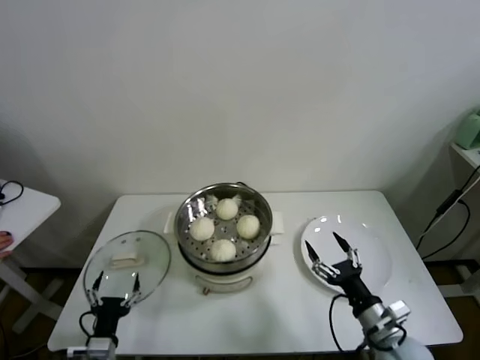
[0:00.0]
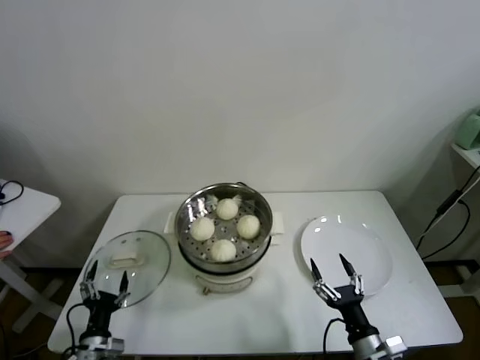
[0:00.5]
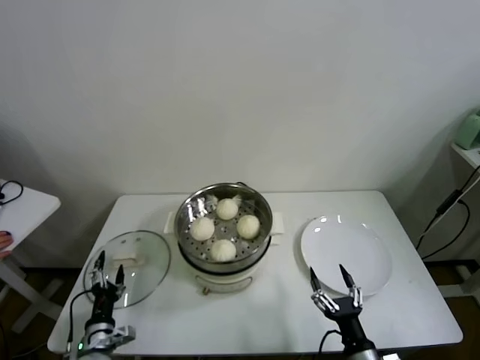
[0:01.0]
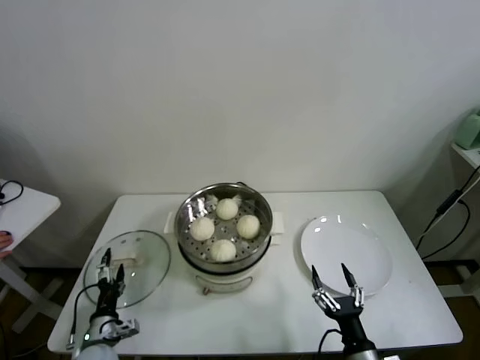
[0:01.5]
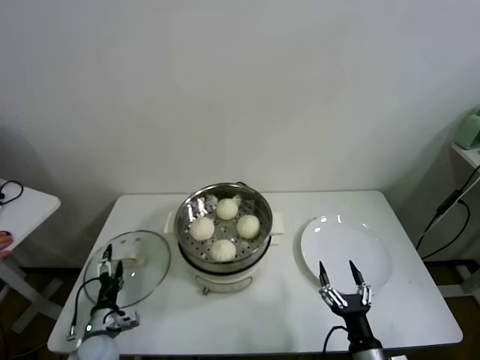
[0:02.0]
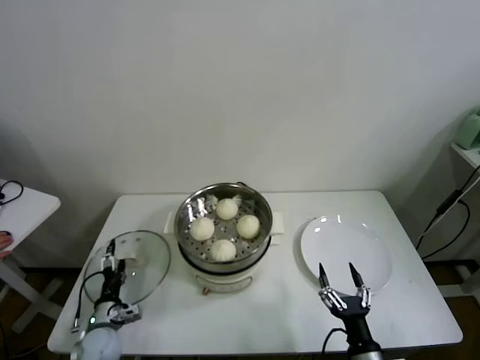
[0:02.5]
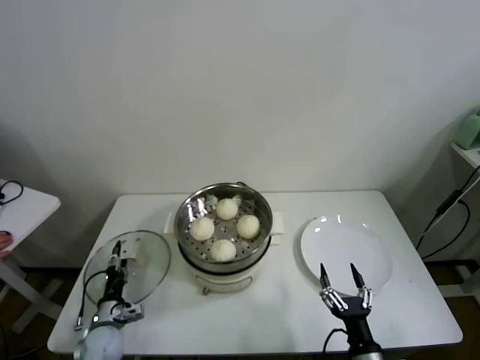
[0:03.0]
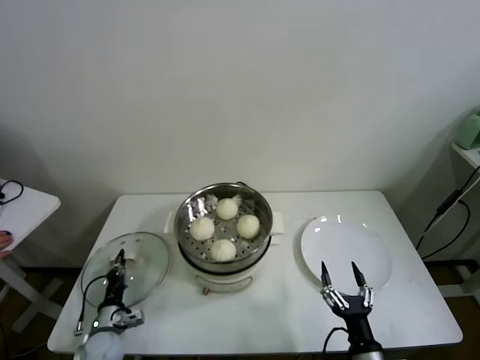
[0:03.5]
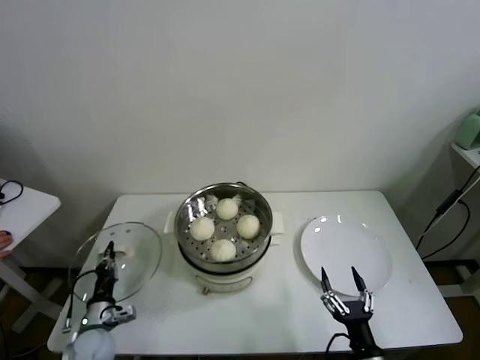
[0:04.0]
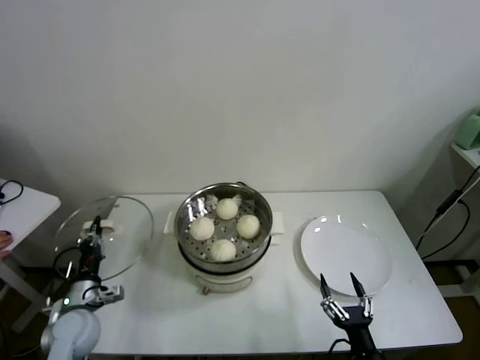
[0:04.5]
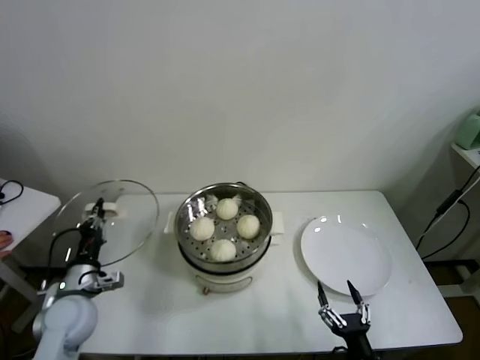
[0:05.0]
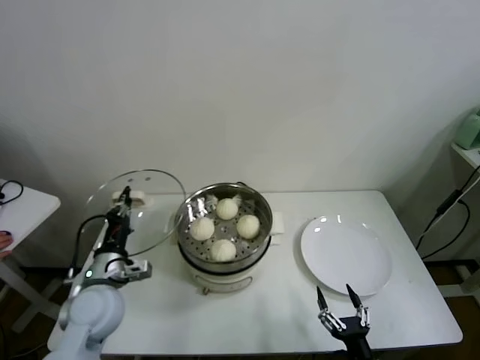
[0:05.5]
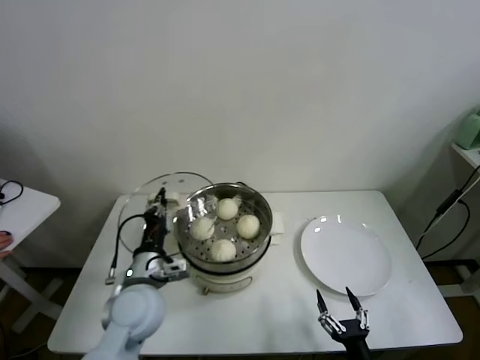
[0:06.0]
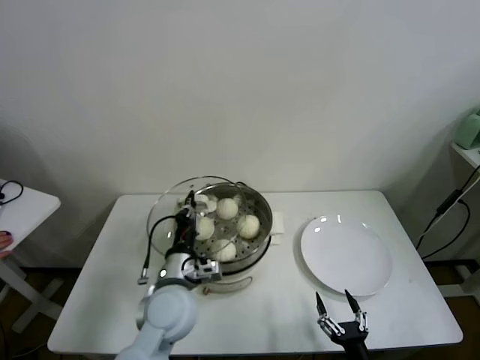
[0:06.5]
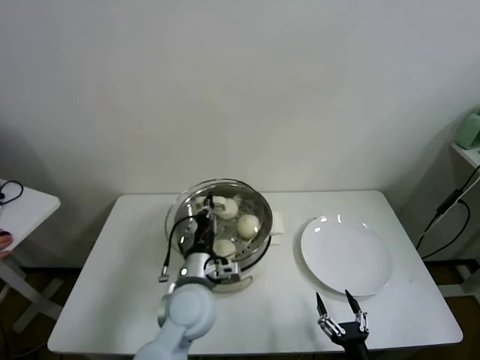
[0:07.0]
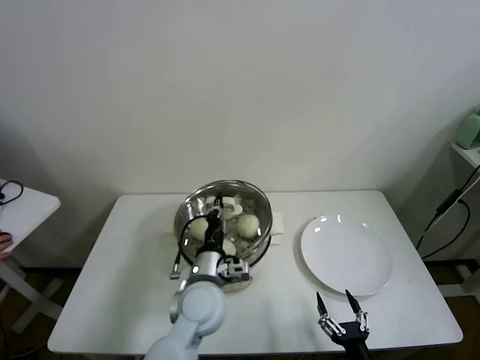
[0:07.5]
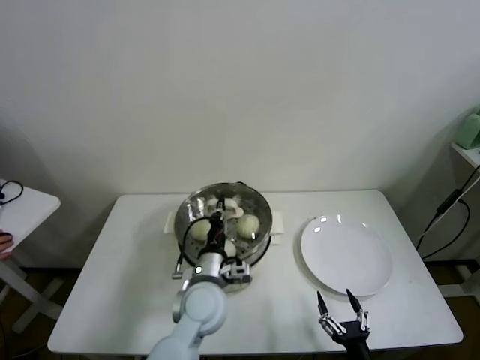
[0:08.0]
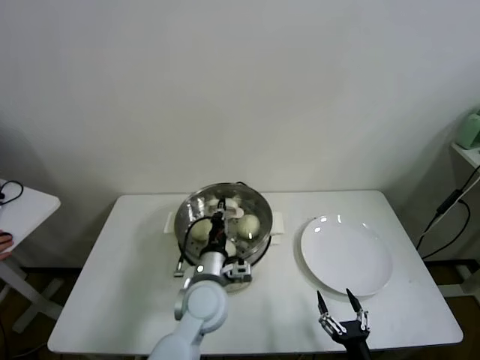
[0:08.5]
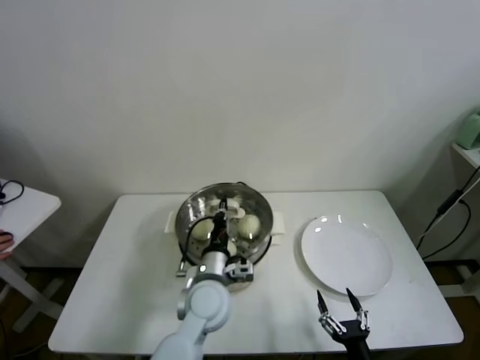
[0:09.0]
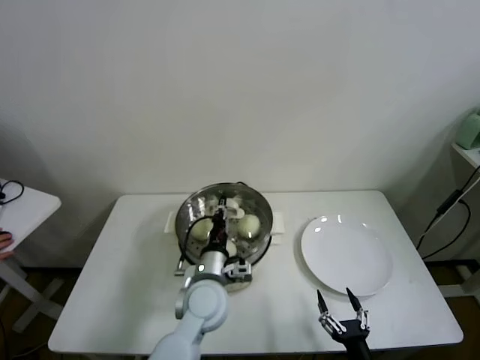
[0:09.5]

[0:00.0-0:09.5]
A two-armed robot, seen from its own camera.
Task of the whole recording: take steamed baozi put them in steamer.
Step, 0:00.0 to 0:03.0: Grasp the pot lid with left gripper.
0:00.0 to 0:02.0: The left gripper is displaced forward and downward by about 10 cm, while the right gripper heads backward and downward, covering about 10 cm.
0:02.0 to 0:04.0: The left gripper closes.
0:04.0 to 0:05.5: The left gripper goes approximately 20 cm upward.
0:05.5 to 0:07.5: The left gripper is displaced to the right by approximately 20 cm.
0:07.5 to 0:09.5: The grippers make only small movements.

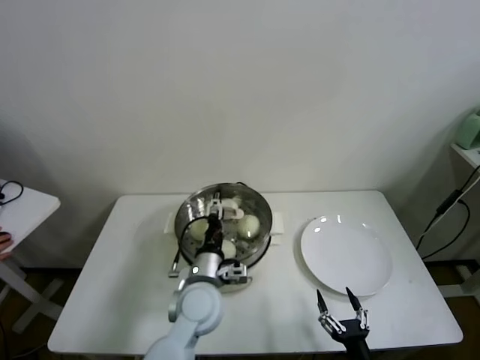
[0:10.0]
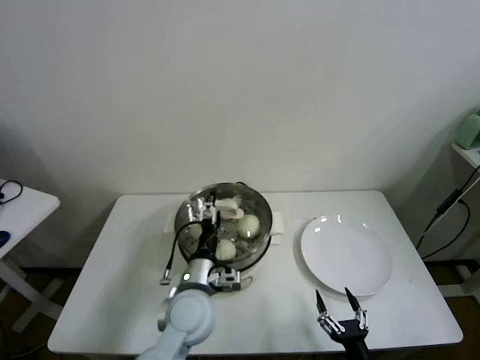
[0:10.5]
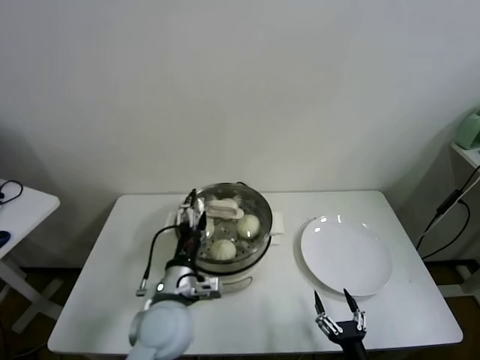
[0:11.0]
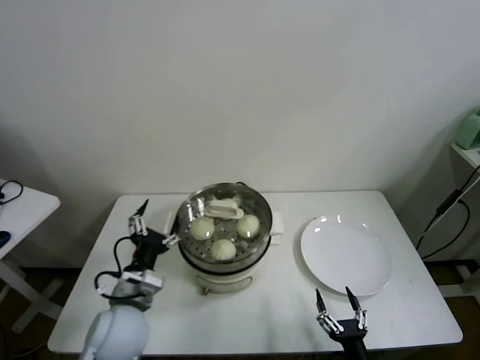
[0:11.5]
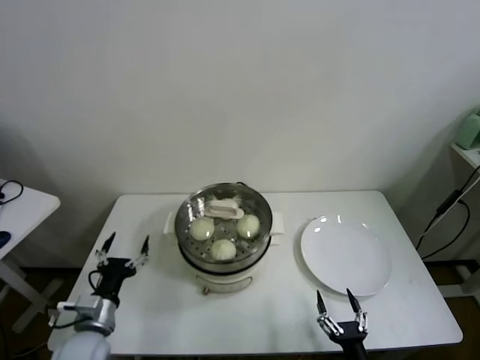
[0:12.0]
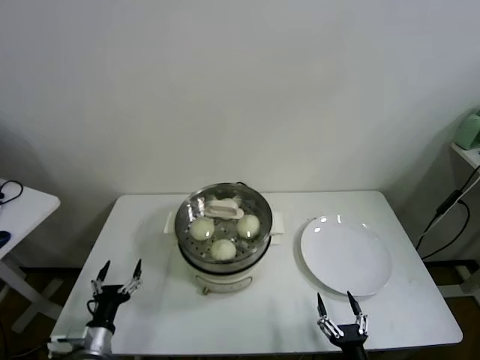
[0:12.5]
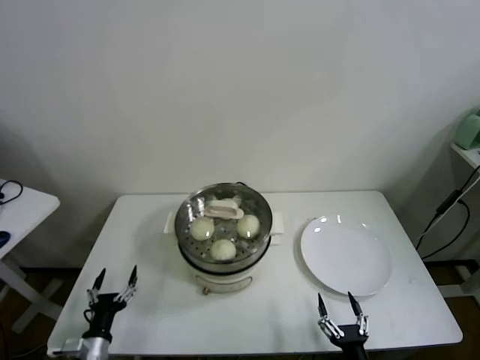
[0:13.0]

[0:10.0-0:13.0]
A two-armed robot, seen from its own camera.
Task of the whole recording: take steamed baozi put them in steamer.
0:10.0 to 0:11.5: The left gripper moves to the left and backward, roughly 15 cm.
0:11.5 to 0:13.0: The left gripper shifts some 25 cm downward, to the left and backward.
